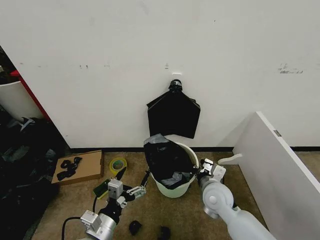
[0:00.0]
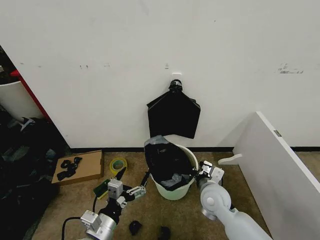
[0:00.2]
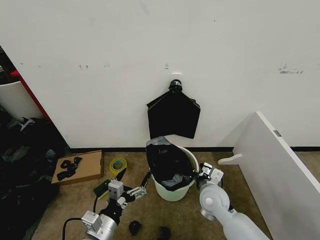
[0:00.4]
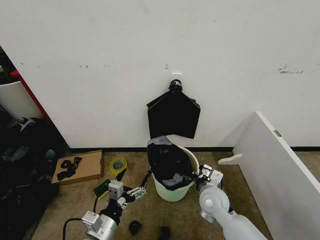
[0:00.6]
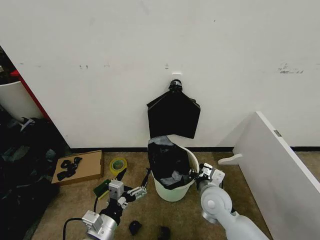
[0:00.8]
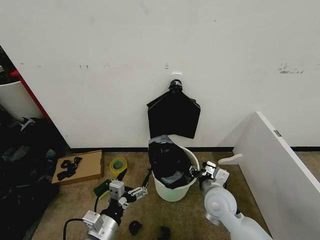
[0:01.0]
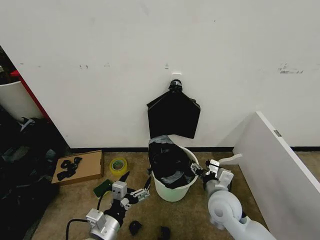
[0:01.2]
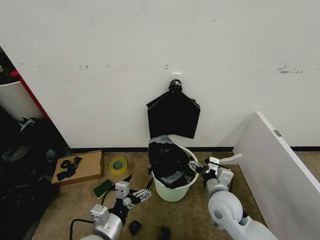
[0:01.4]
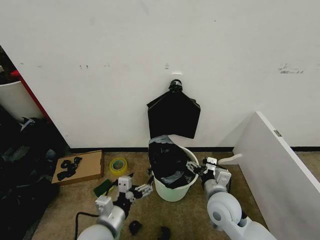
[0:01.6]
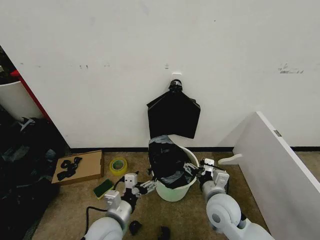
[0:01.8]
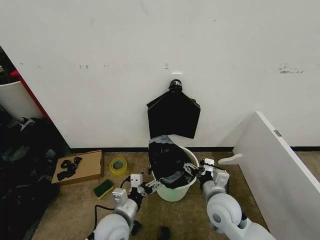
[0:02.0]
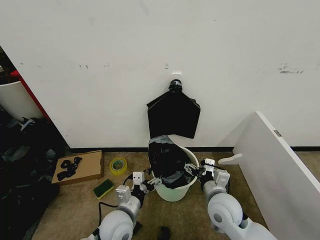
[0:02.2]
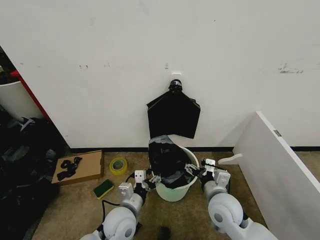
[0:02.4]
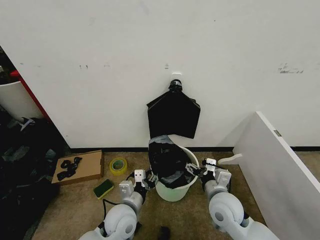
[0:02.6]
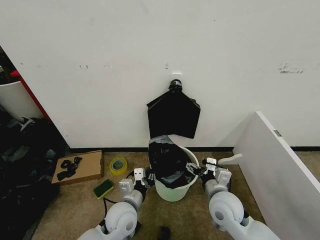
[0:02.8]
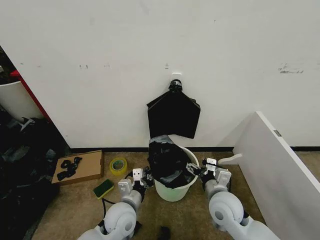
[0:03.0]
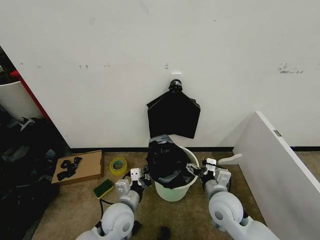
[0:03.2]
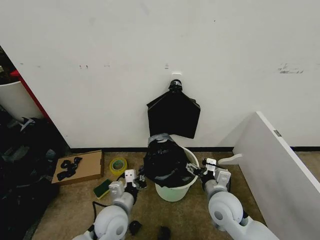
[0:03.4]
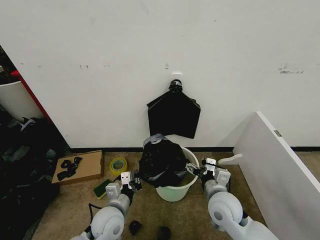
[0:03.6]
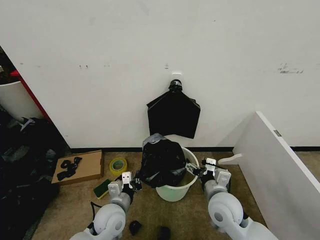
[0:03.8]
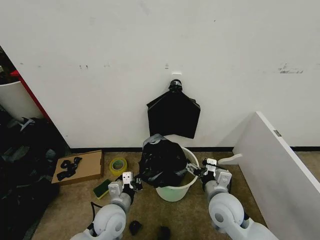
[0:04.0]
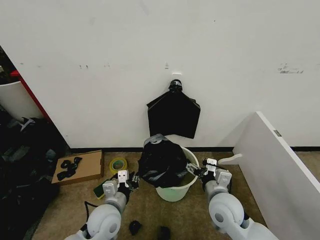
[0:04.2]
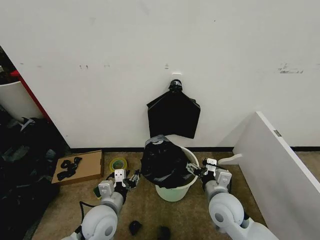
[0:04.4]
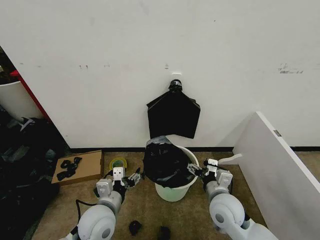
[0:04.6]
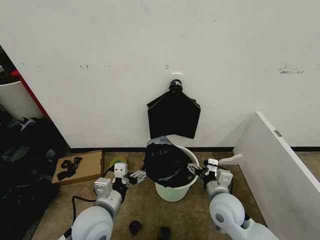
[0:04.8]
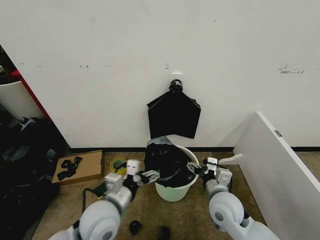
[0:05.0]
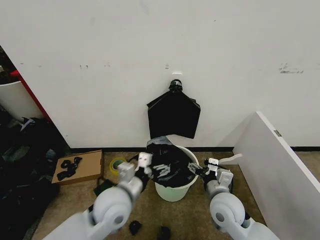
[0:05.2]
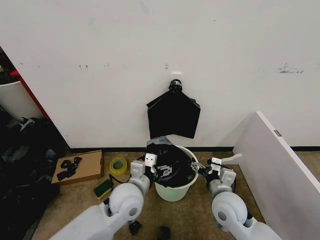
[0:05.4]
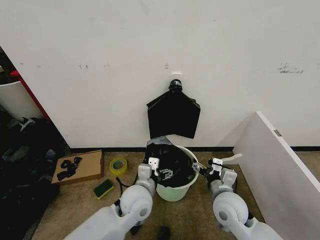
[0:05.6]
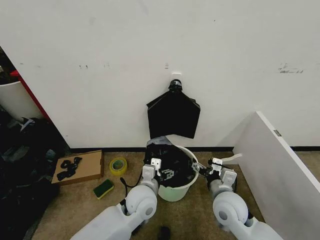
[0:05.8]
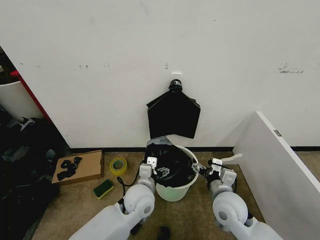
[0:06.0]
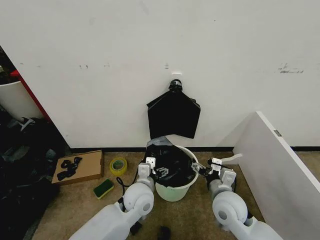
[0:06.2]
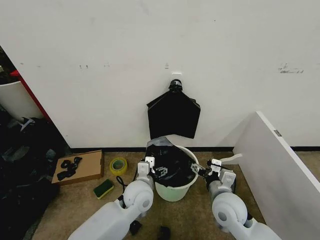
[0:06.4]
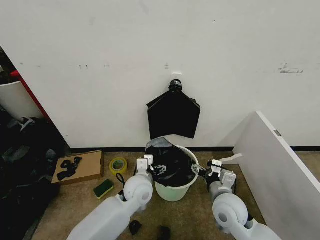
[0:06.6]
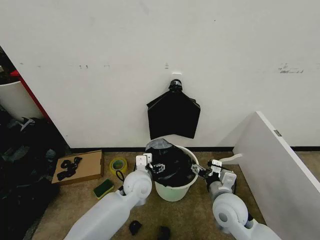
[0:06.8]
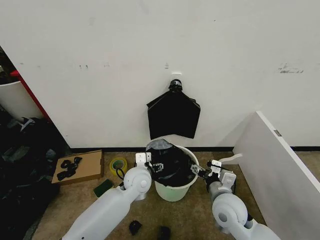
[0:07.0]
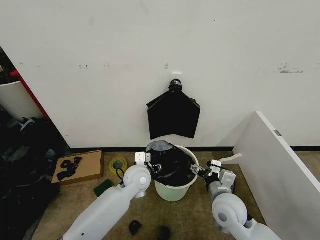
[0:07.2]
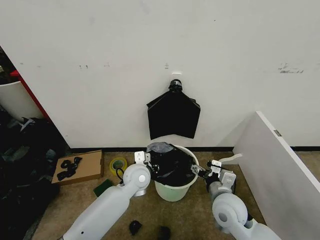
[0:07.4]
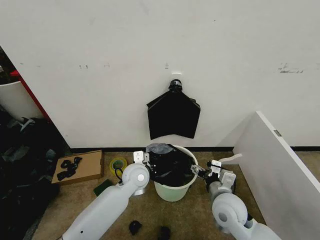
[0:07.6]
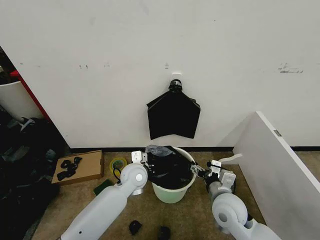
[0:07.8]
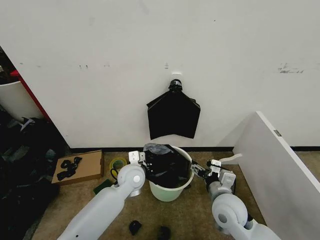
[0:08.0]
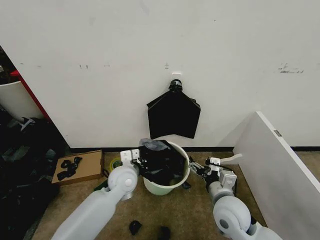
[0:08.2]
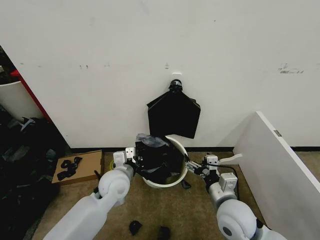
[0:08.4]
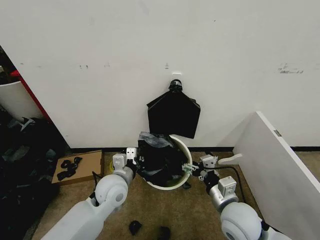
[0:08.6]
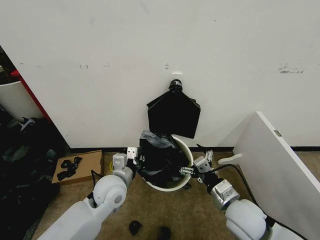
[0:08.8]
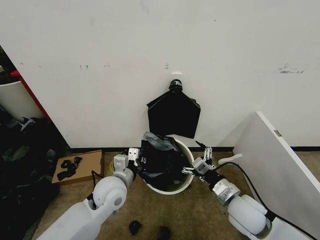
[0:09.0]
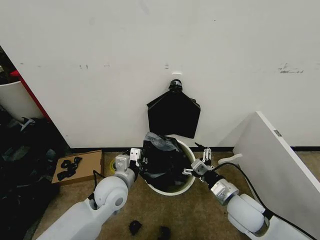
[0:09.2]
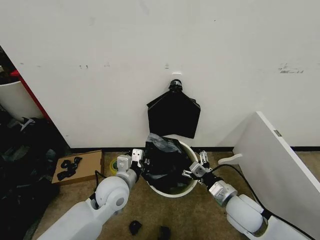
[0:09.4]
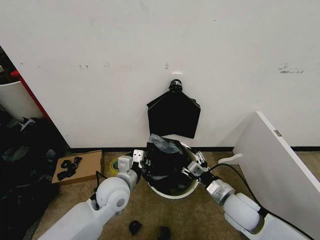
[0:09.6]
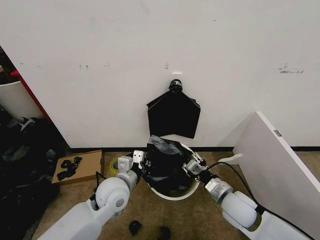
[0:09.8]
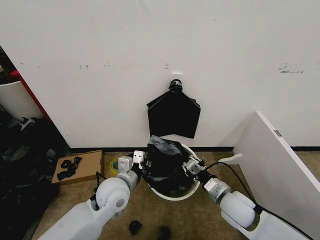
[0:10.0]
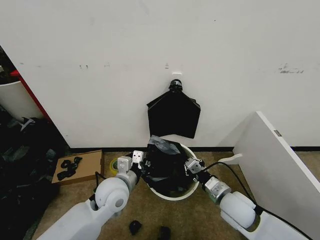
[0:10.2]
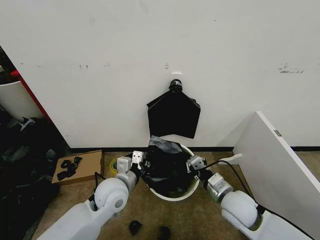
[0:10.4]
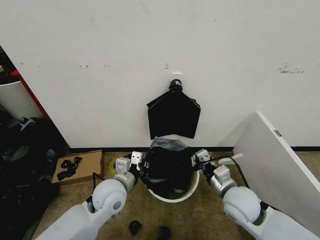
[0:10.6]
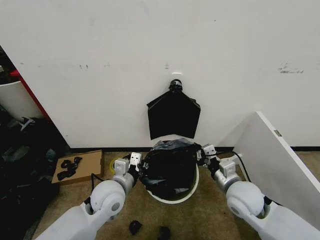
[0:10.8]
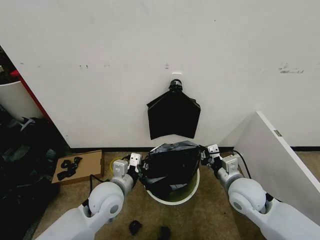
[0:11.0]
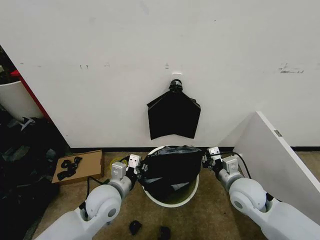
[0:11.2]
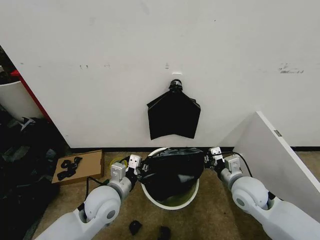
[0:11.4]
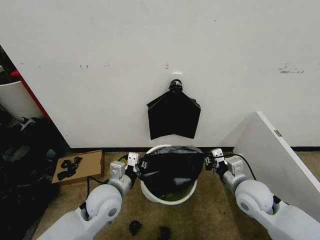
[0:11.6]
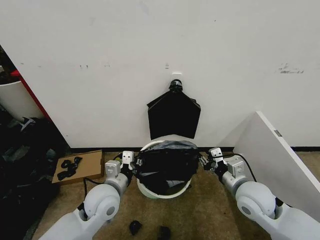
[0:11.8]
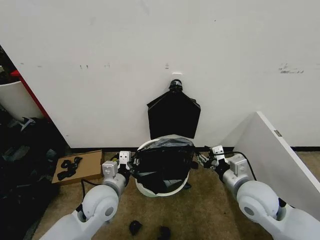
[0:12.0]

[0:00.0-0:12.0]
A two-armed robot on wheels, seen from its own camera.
Task of the whole recording: Place the garbage bag over the trash bin.
0:00.0 to 0:01.6: The right gripper opens.
0:01.6 to 0:03.0: The left gripper moves forward, approximately 5 cm, and closes up.
0:03.0 to 0:04.4: The left gripper is displaced to the left by some 5 cm, and opens up.
0:04.4 to 0:06.0: The left gripper is displaced to the right and forward by about 15 cm, and opens.
0:06.0 to 0:07.6: The left gripper travels forward by approximately 10 cm, and closes.
0:07.6 to 0:09.0: The left gripper travels backward and to the left by roughly 10 cm.
0:09.0 to 0:10.4: The right gripper closes up.
0:10.4 to 0:12.0: The right gripper shifts some 5 cm upward, and opens its fingers.

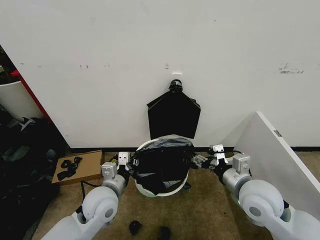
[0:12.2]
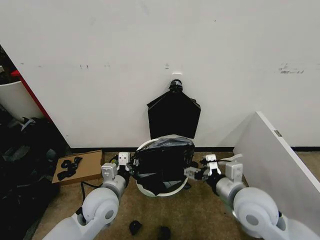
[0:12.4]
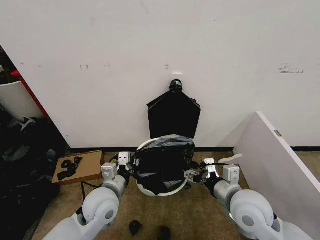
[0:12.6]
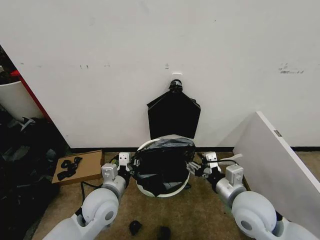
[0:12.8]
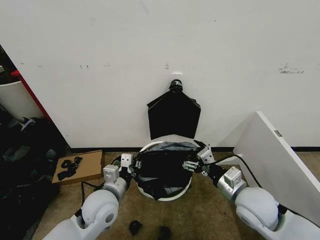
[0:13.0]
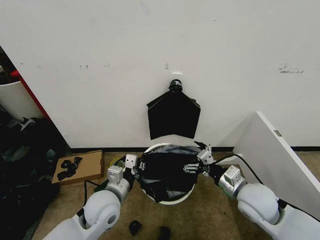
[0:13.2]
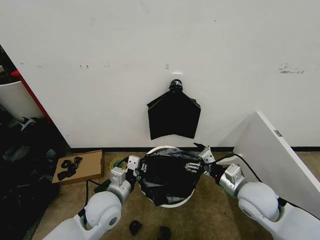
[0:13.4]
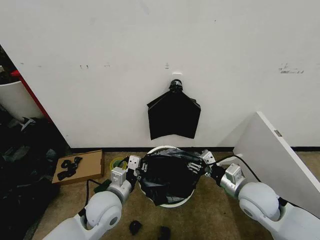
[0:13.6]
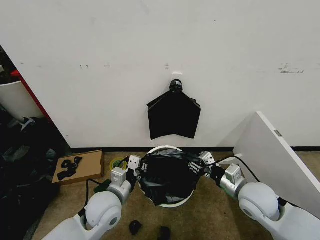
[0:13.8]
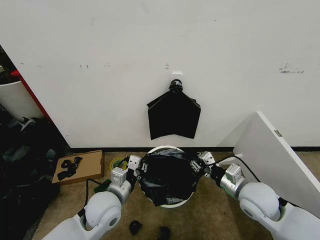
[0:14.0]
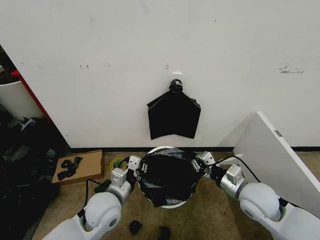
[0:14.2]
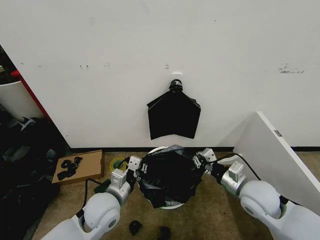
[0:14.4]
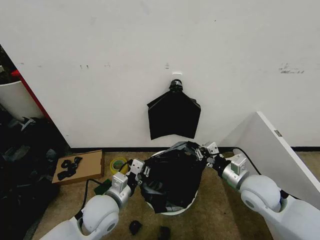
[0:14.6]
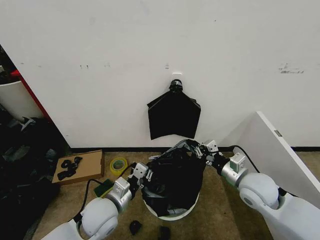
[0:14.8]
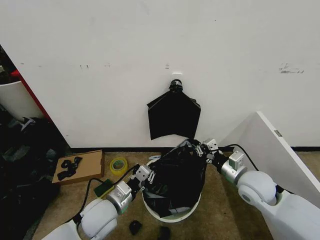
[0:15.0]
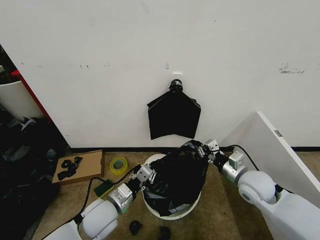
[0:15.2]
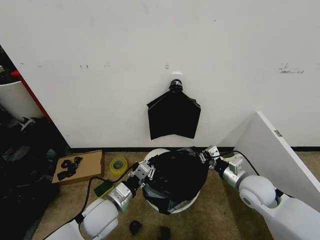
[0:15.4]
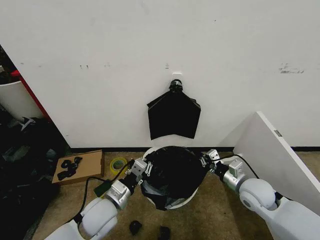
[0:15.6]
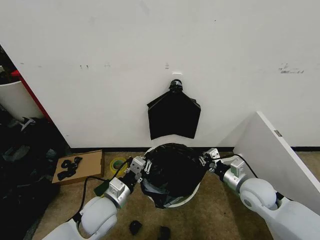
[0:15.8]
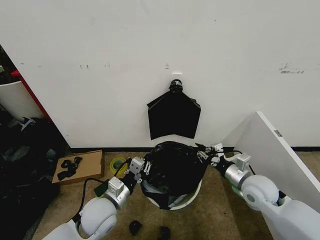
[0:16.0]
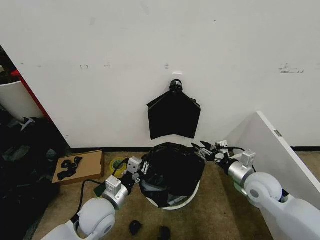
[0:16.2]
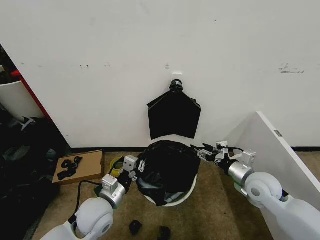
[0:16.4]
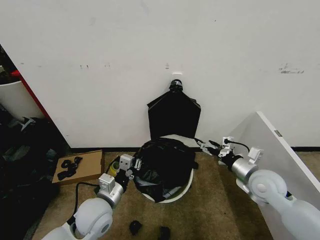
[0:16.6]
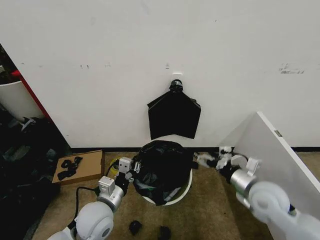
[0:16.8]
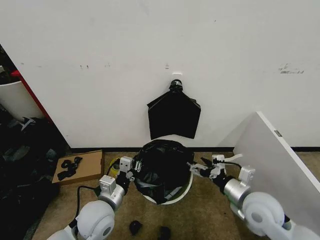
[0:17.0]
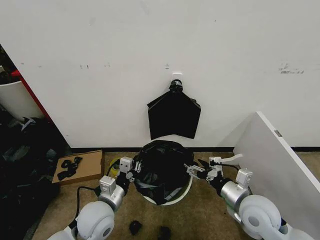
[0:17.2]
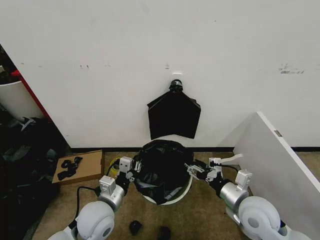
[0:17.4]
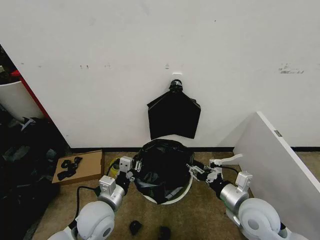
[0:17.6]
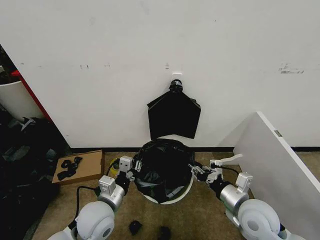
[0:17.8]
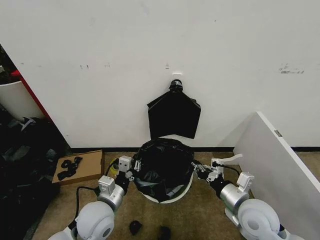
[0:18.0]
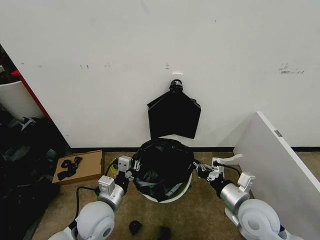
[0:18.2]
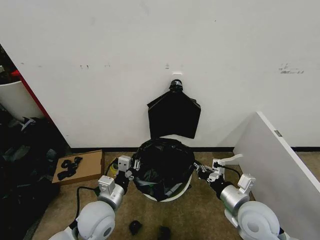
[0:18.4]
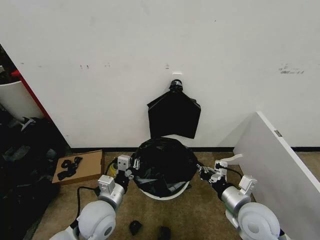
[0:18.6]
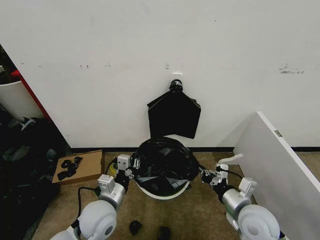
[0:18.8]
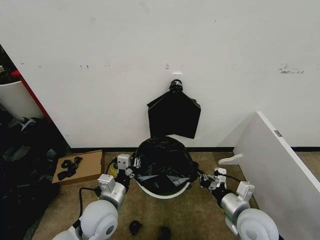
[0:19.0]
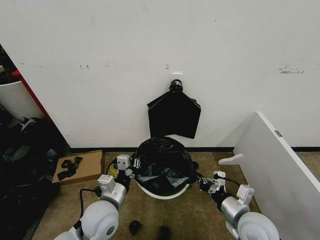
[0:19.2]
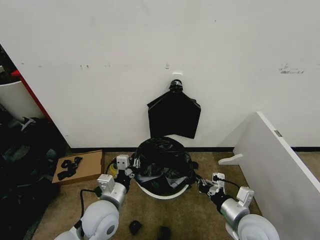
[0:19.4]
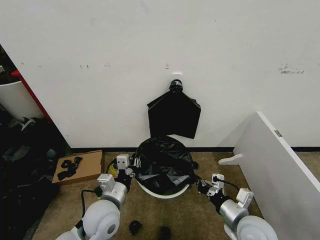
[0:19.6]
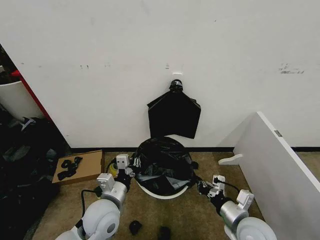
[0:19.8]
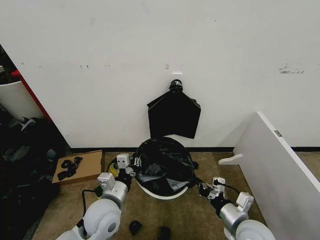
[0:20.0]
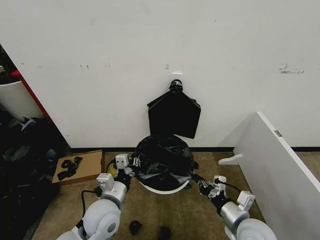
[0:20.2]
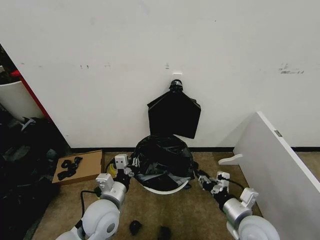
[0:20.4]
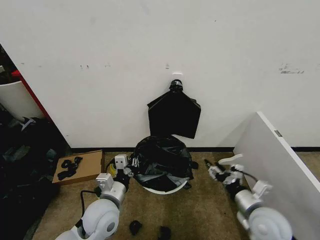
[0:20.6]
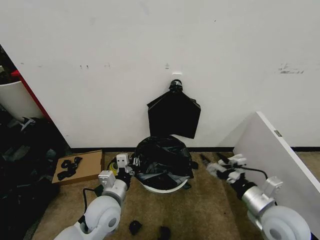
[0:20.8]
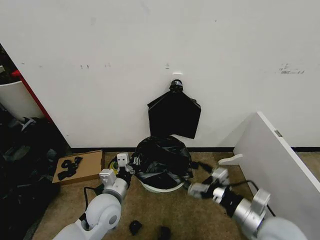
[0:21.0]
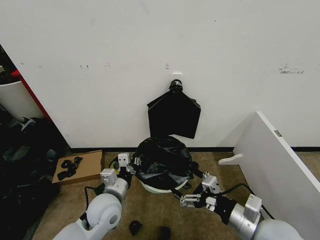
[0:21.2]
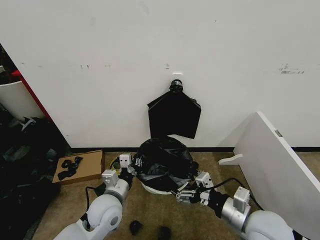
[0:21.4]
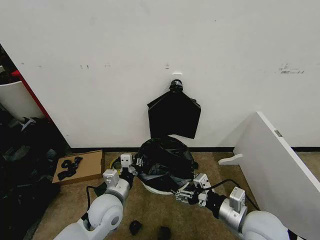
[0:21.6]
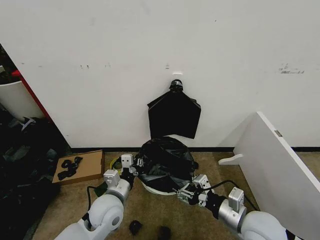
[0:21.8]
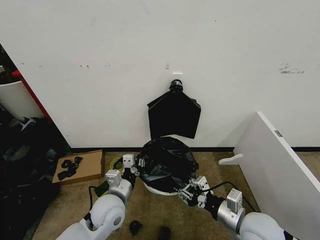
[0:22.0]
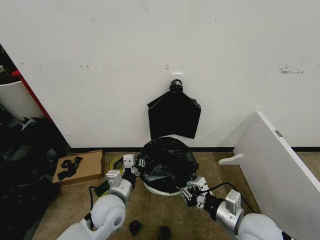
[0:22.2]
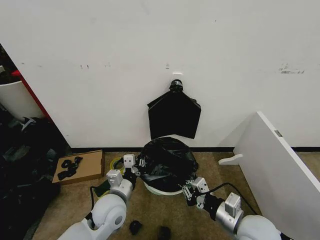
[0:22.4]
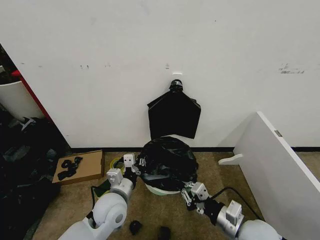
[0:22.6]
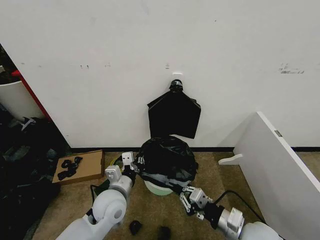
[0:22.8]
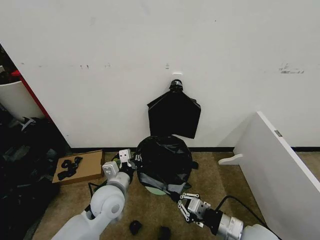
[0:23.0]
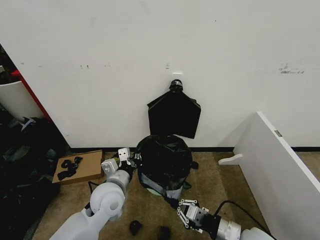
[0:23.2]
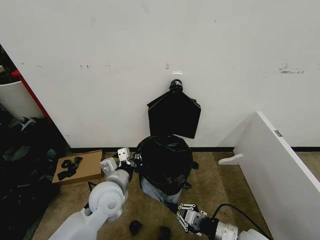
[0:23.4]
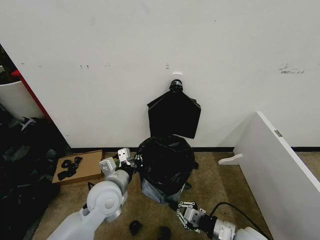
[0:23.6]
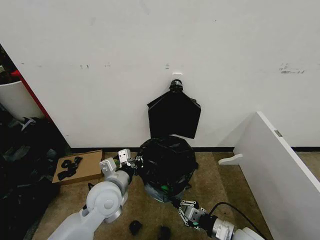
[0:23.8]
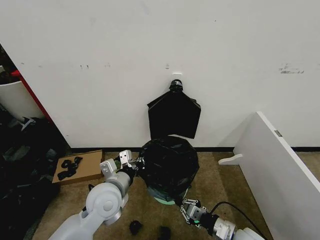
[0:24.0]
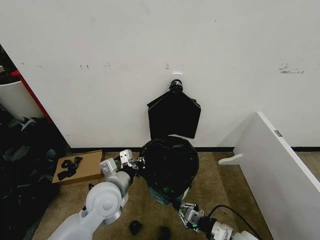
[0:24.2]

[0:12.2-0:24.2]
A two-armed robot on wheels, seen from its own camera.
Task of the whole recording: Place the garbage bag over the trash bin.
0:12.2 to 0:13.8: The right gripper travels downward by some 5 cm.
0:13.8 to 0:15.2: The right gripper closes.
0:15.2 to 0:16.6: The right gripper opens.
0:16.6 to 0:18.2: The right gripper heads backward and to the left, covering some 10 cm, and closes.
0:18.2 to 0:19.8: The right gripper ends up about 5 cm from where it was.
0:19.8 to 0:21.2: The right gripper heads upward, covering about 10 cm, and opens up.
0:21.2 to 0:22.6: The right gripper moves downward, approximately 5 cm, and closes up.
0:22.6 to 0:24.2: The left gripper goes roughly 5 cm upward; the right gripper moves downward, roughly 10 cm.
